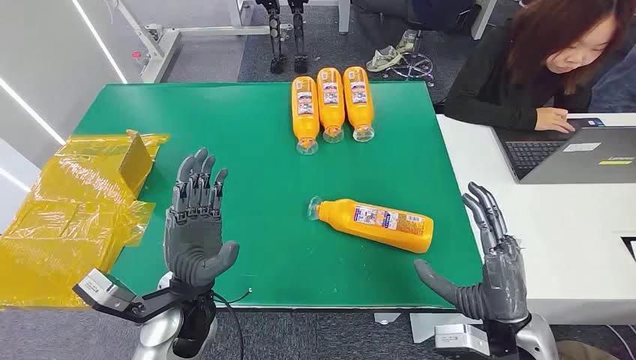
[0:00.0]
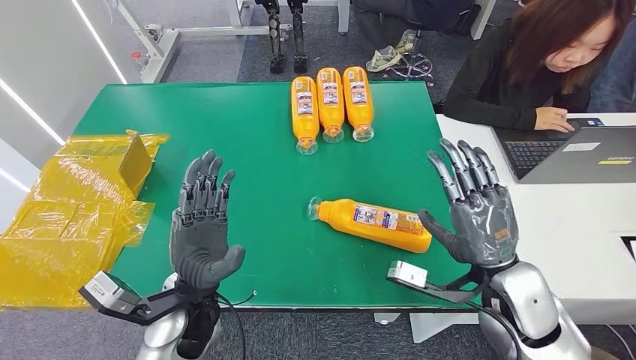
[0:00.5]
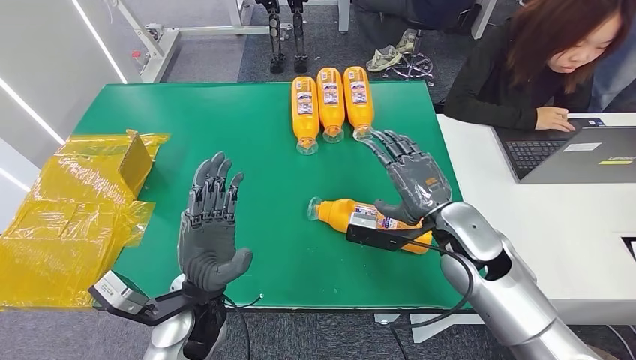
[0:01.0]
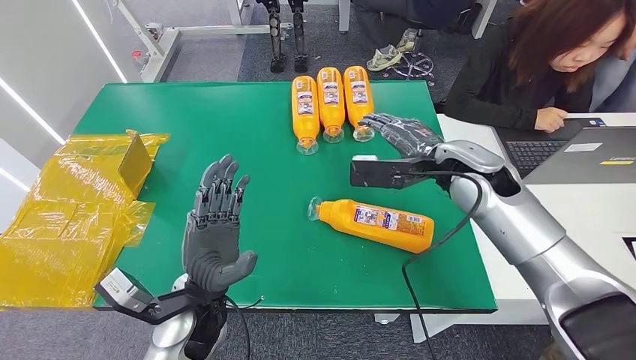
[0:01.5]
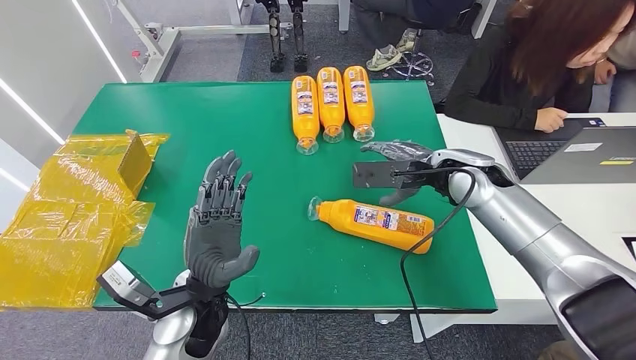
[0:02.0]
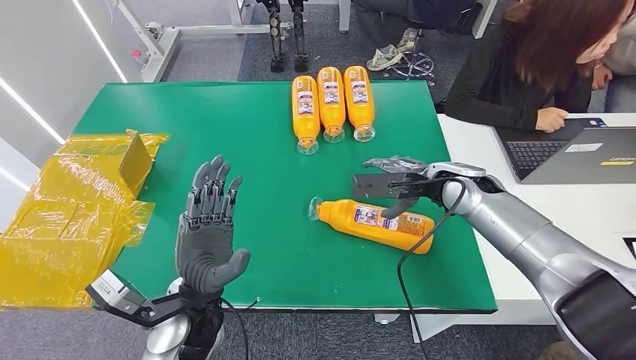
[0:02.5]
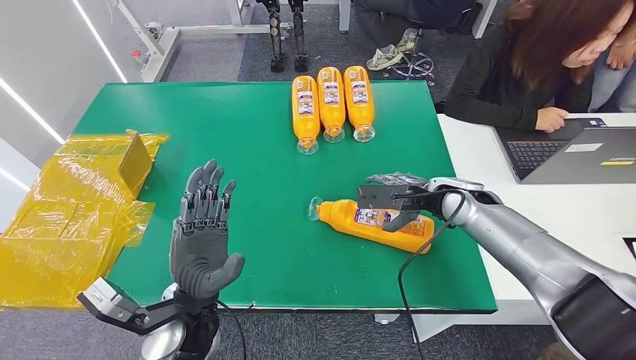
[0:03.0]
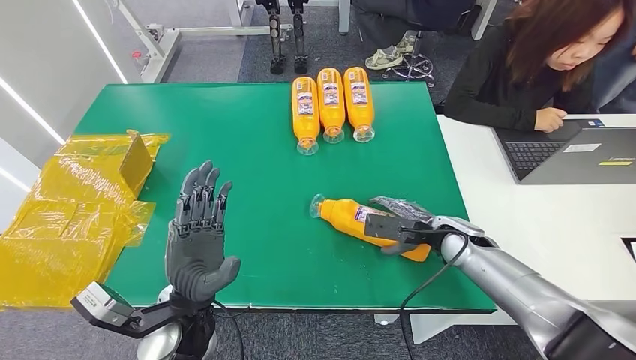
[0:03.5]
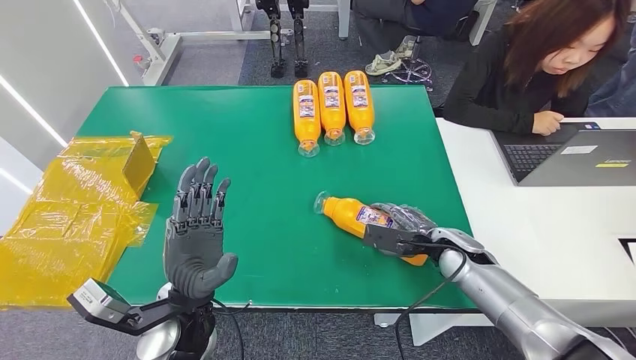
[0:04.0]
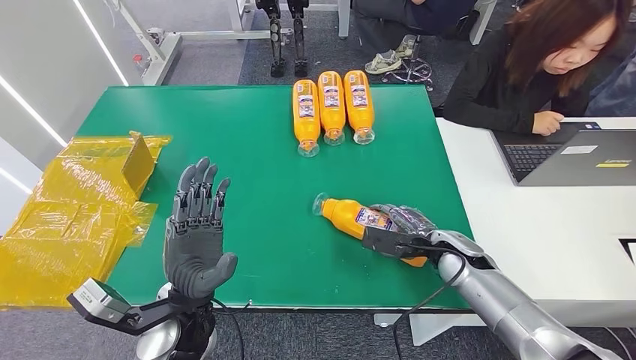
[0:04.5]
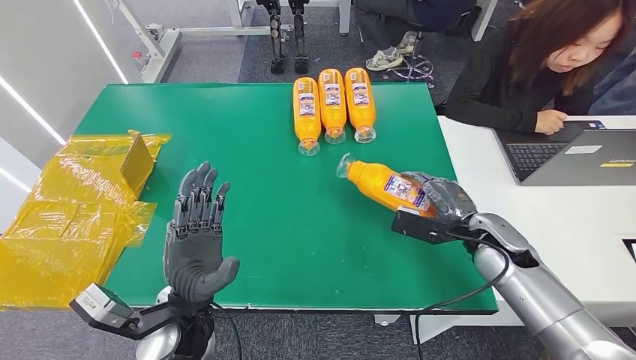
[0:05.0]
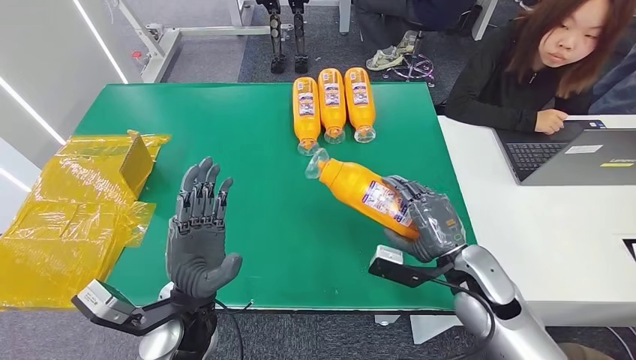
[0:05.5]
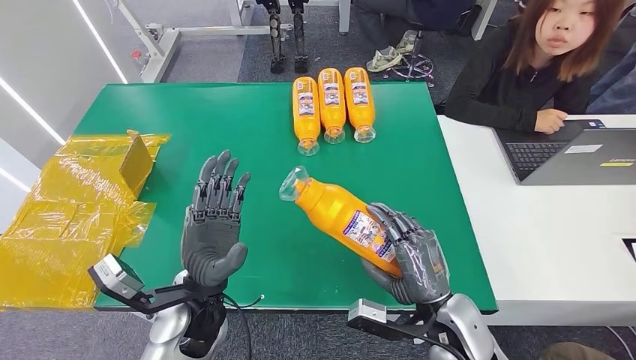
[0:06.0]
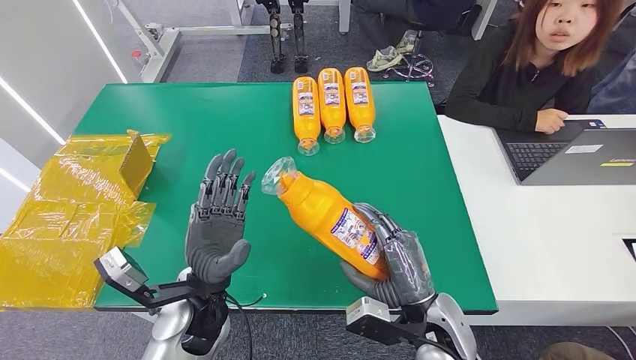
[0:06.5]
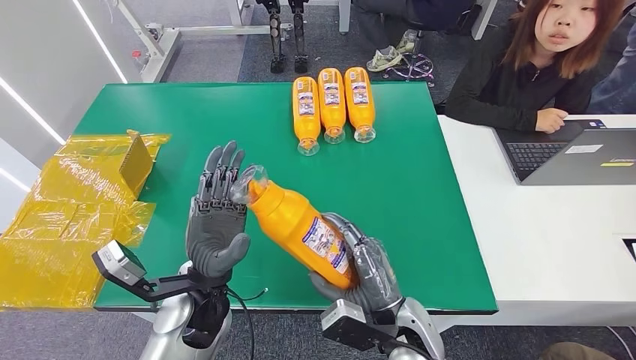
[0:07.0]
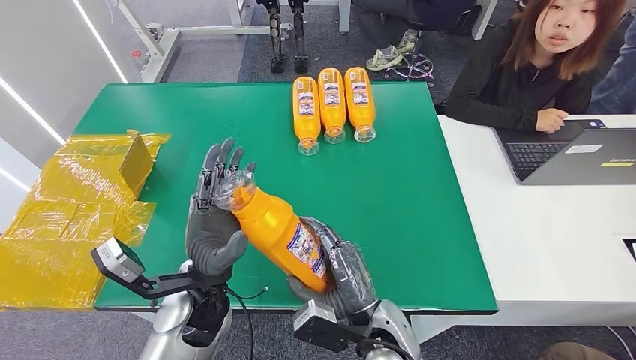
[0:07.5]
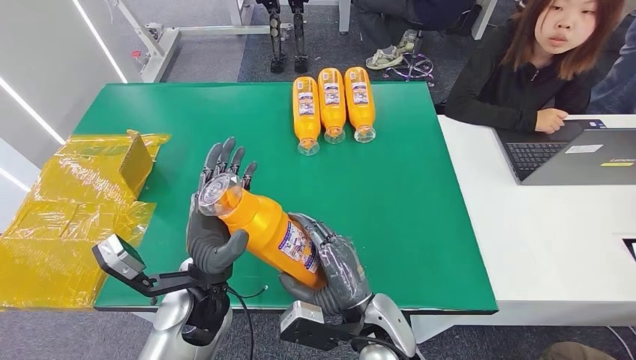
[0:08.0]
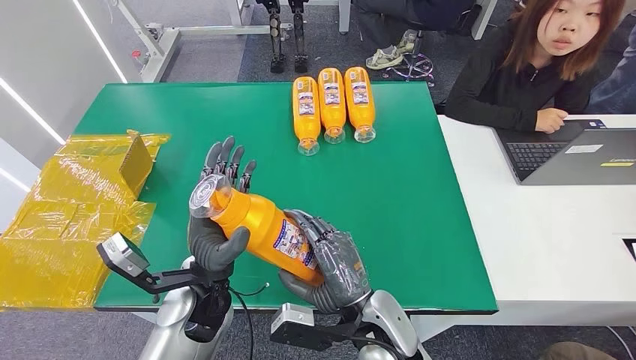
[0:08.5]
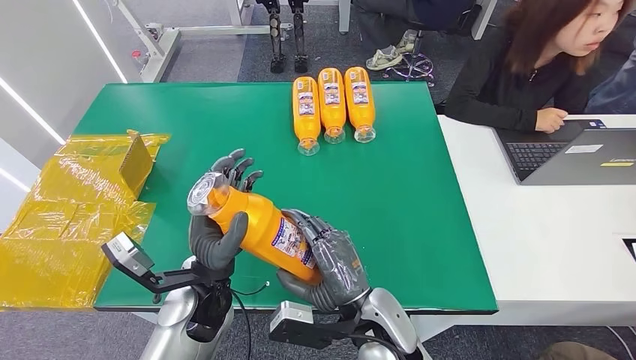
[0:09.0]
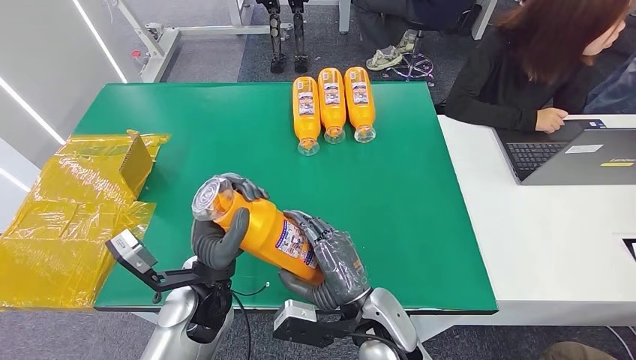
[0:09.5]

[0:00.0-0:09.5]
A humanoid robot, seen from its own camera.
Step, 0:00.0 to 0:05.0: Pick up the bottle from the table.
0:04.0 to 0:05.5: The right hand moves upward and backward, about 10 cm.
0:07.5 to 0:09.5: The hands stay close to where they were, moving slightly.

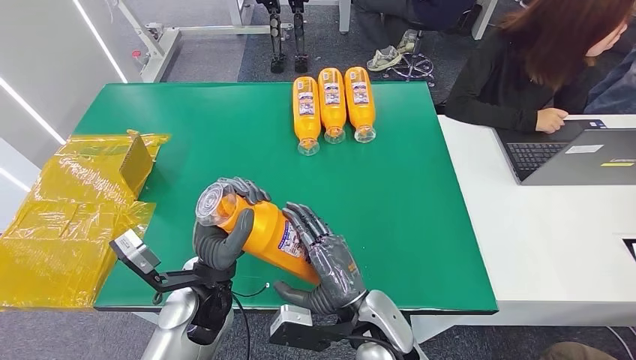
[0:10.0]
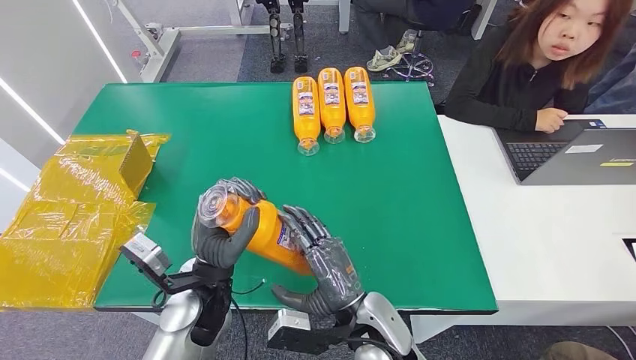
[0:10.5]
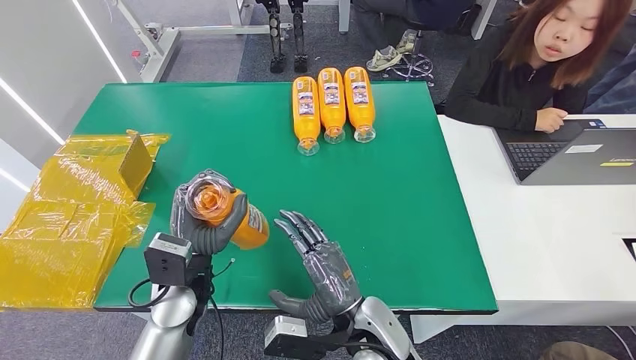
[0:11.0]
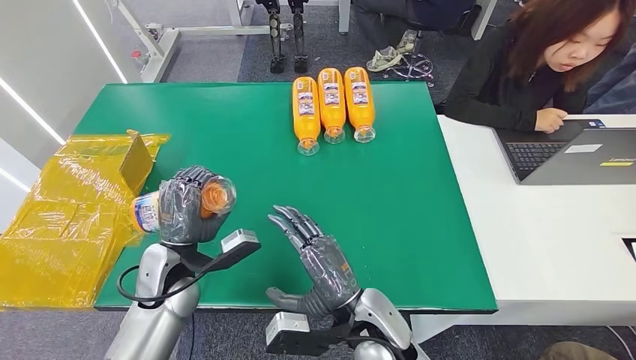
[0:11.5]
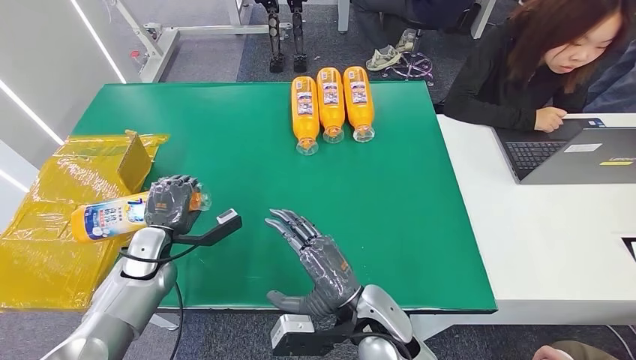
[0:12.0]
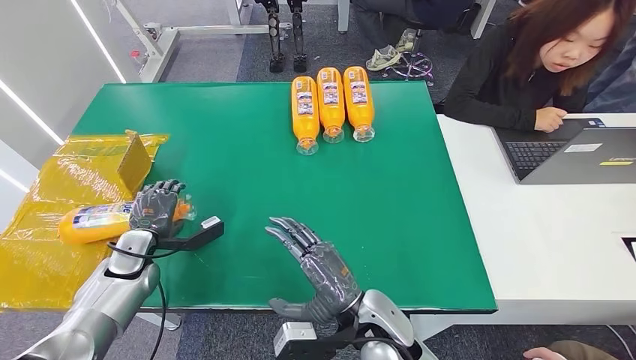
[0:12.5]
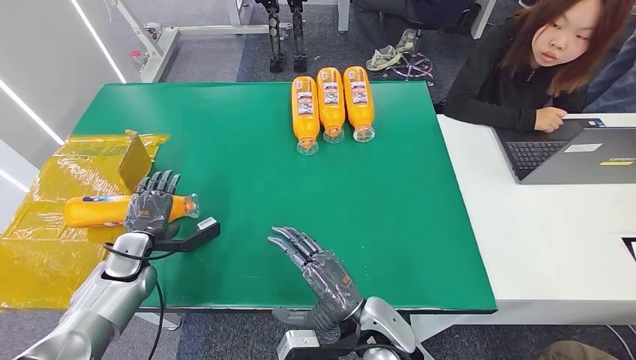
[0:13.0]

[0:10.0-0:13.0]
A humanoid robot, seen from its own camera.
Step, 0:10.0 to 0:13.0: Turn the bottle to the front side.
0:10.0 to 0:11.5: The left hand moves to the left, some 10 cm.
0:11.5 to 0:13.0: The left hand shifts about 15 cm to the left.
